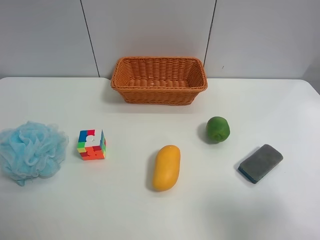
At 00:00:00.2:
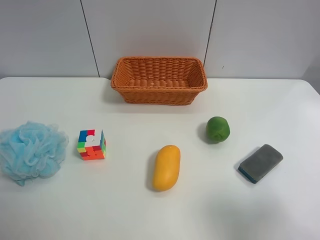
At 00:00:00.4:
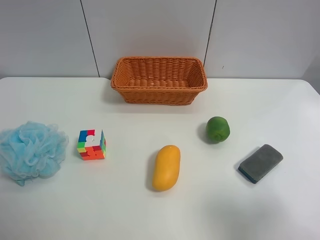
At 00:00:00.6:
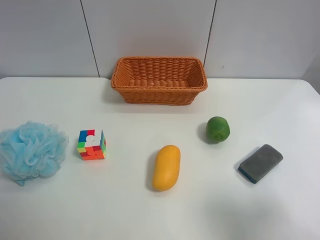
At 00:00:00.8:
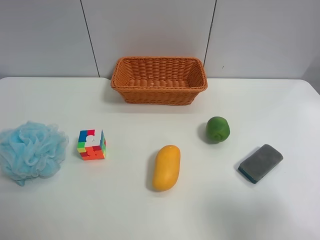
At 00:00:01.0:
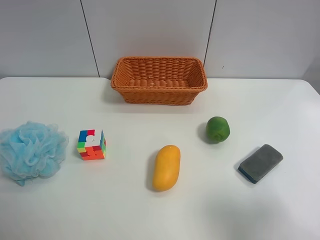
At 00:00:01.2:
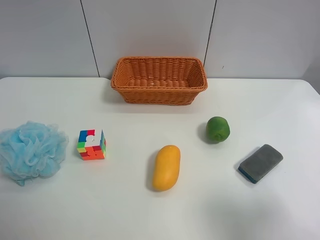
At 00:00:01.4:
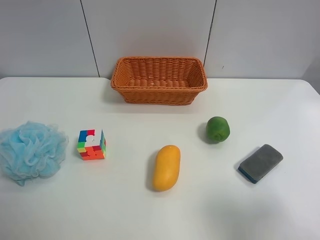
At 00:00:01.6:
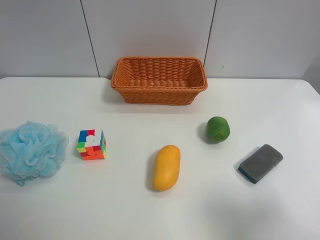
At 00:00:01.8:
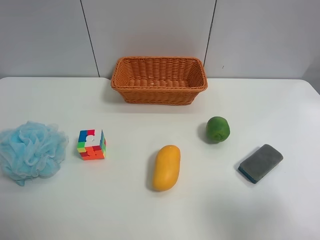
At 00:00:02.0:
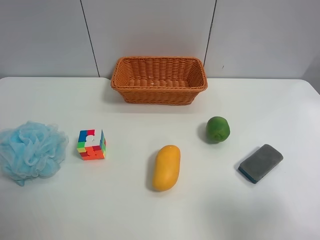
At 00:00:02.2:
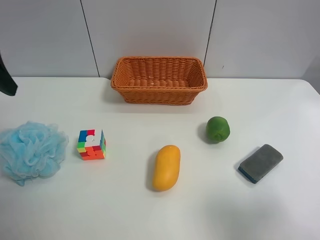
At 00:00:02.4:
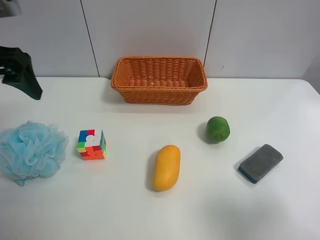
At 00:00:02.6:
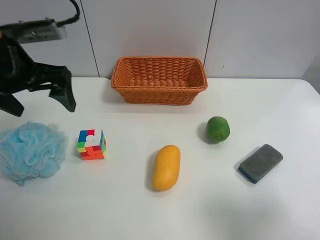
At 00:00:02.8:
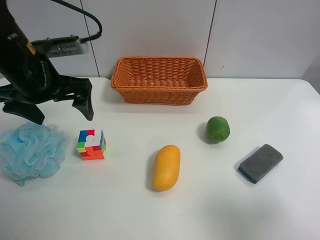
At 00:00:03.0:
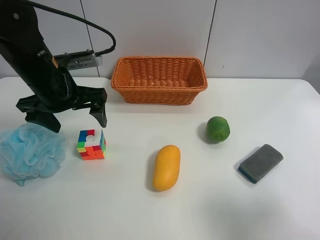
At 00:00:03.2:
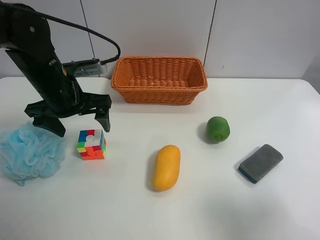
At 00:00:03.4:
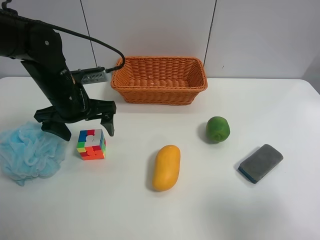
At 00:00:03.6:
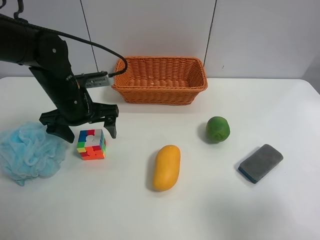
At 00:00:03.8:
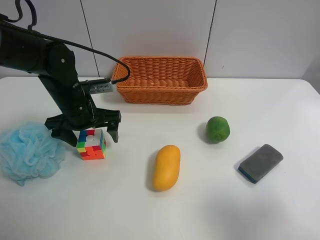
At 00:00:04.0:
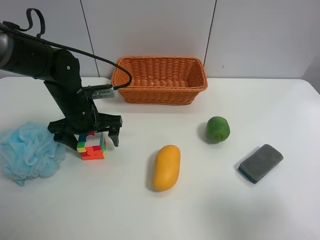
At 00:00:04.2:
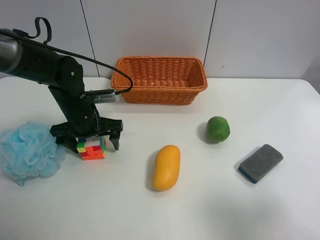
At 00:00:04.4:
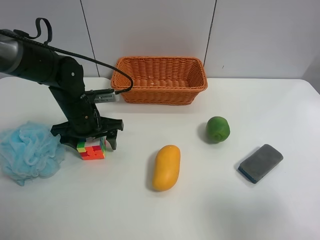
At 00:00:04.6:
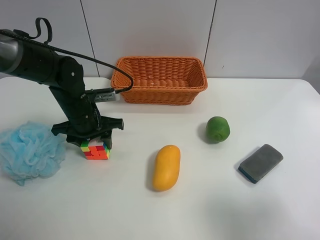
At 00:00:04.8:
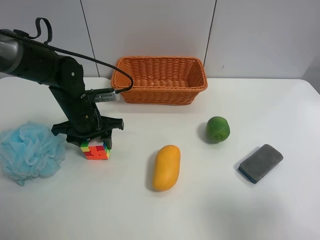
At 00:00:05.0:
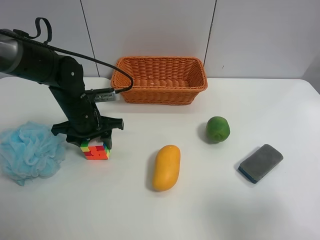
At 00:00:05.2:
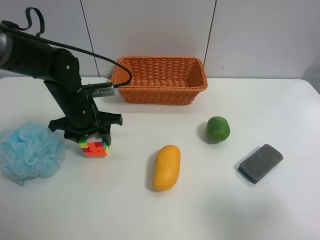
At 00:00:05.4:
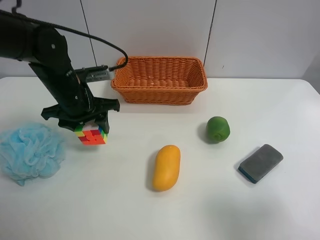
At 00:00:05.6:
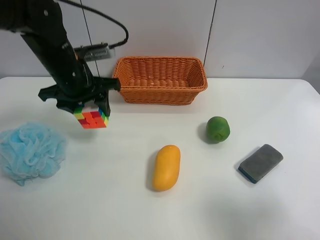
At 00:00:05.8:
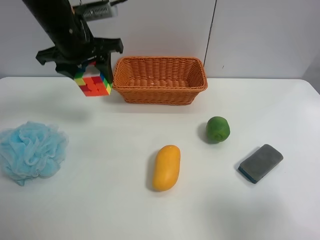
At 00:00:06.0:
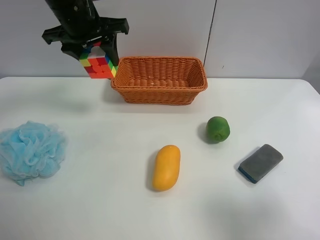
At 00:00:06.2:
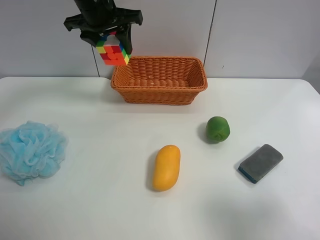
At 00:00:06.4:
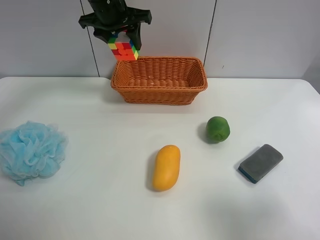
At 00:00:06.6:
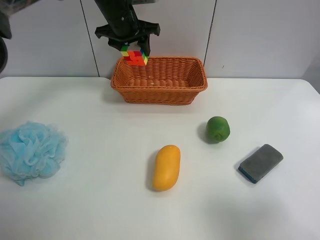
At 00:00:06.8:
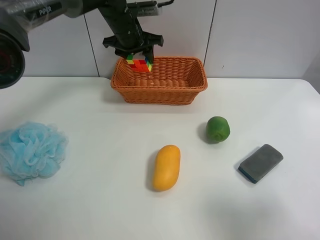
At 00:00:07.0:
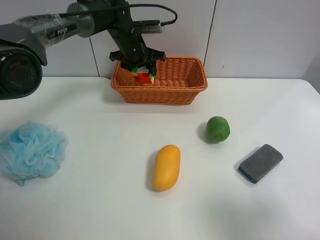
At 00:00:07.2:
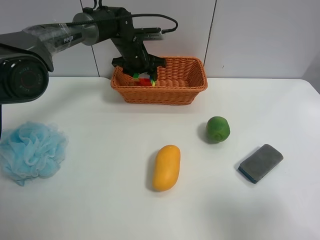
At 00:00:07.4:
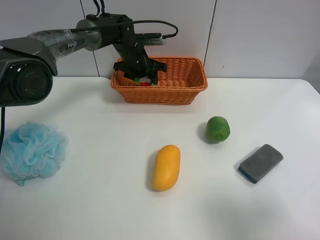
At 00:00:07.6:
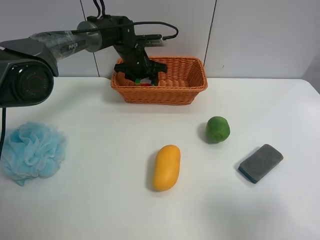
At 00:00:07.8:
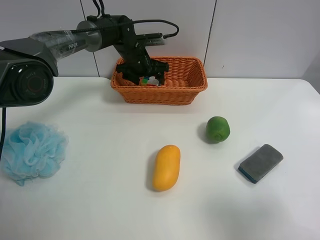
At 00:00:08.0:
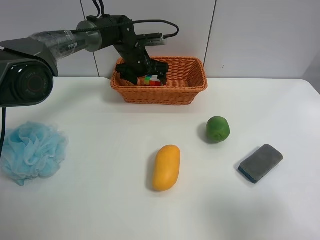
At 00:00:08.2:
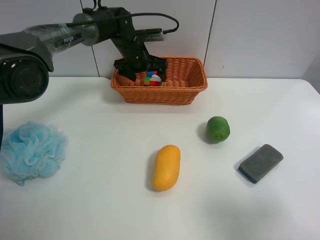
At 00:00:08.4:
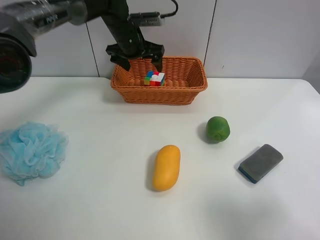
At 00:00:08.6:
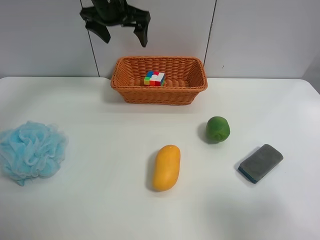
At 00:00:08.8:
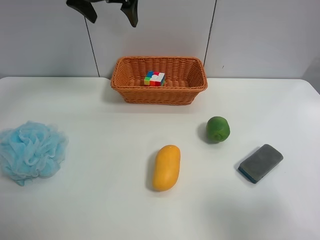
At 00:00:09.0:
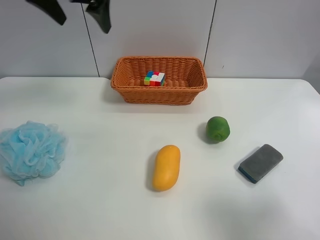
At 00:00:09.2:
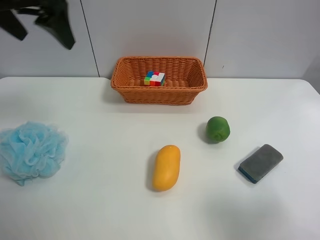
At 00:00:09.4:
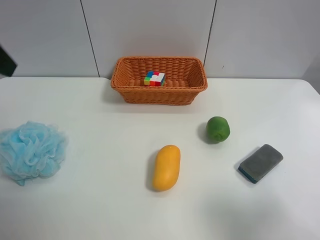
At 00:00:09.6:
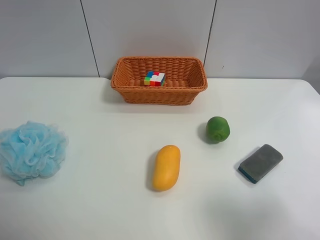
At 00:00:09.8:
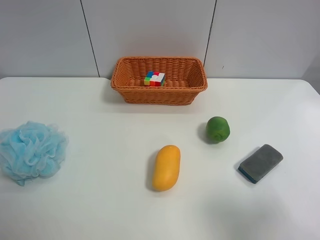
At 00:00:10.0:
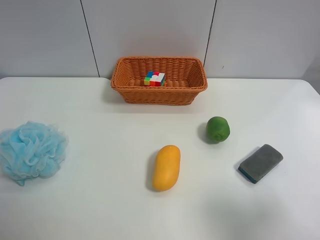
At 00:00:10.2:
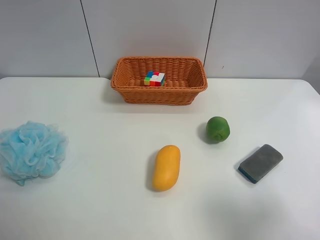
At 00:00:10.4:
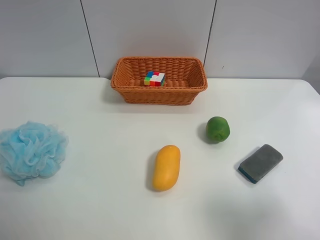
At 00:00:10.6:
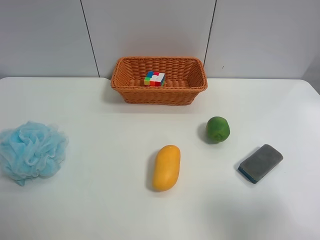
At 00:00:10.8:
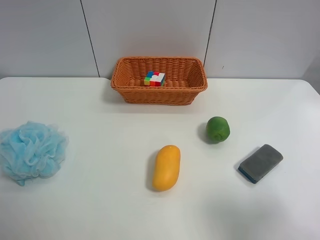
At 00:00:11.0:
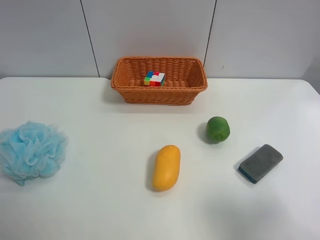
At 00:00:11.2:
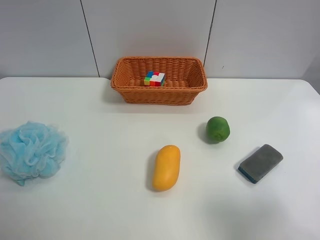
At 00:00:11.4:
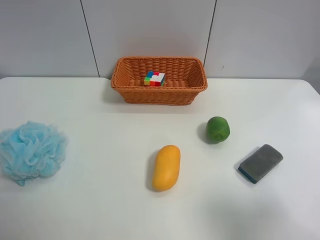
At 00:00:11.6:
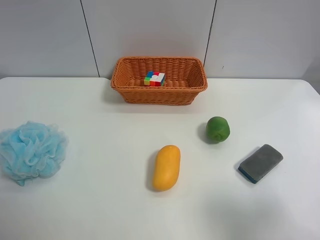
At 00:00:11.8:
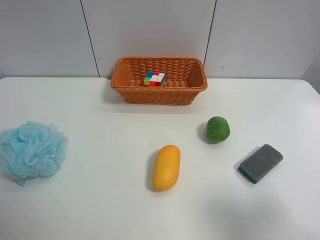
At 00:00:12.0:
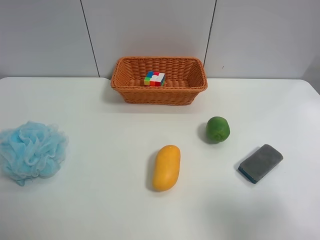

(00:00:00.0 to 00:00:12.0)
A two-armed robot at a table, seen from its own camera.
Task of the whole recording: use the left gripper to grab items from the table and place them in the basket.
Step, 00:00:00.0 - 00:00:04.8: Grasp the Rubik's Cube with the left gripper.
Step, 00:00:05.0 - 00:00:08.0: Place the Rubik's Cube into the basket with the left gripper.
00:00:01.6 - 00:00:03.0: The left gripper shifts roughly 30 cm forward, downward and to the right.
00:00:03.0 - 00:00:04.4: The left gripper moves downward, approximately 10 cm, and closes.
00:00:04.4 - 00:00:06.0: The left gripper moves upward, approximately 20 cm, and closes.
00:00:06.0 - 00:00:07.6: The left gripper shifts some 20 cm downward and forward.
00:00:07.6 - 00:00:09.0: The left gripper is displaced upward, backward and to the left by about 30 cm, and opens up.
00:00:09.0 - 00:00:10.4: The left gripper goes about 35 cm backward and to the left.
